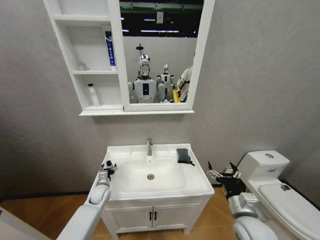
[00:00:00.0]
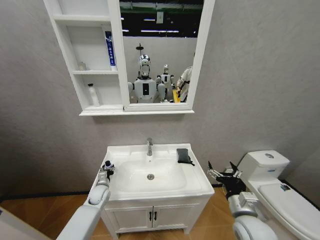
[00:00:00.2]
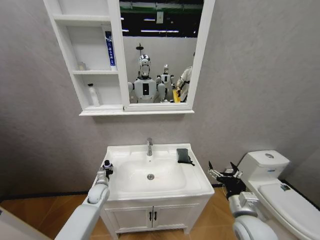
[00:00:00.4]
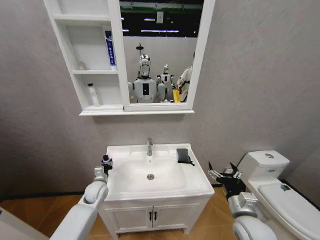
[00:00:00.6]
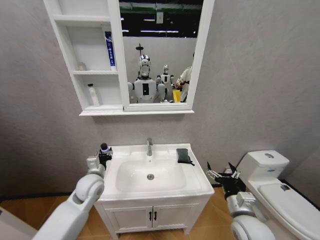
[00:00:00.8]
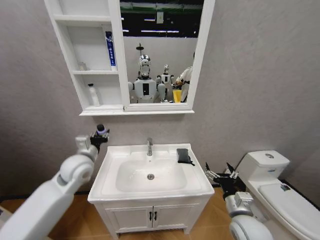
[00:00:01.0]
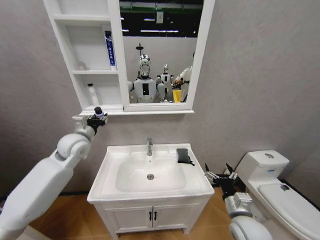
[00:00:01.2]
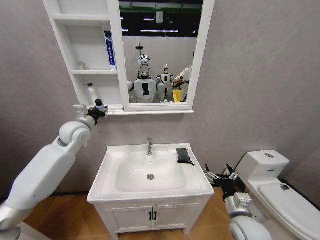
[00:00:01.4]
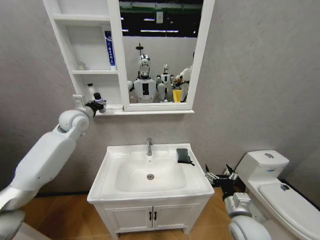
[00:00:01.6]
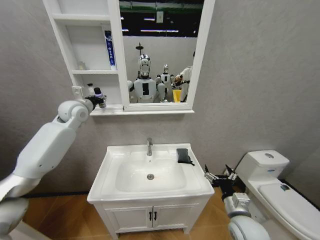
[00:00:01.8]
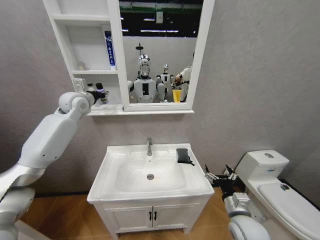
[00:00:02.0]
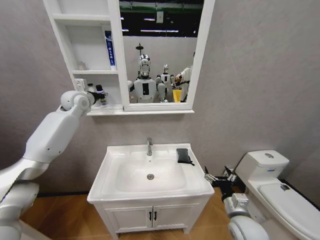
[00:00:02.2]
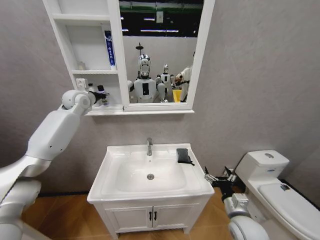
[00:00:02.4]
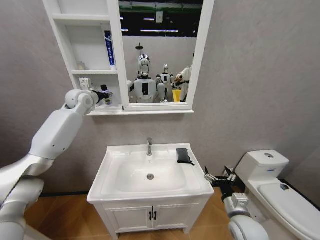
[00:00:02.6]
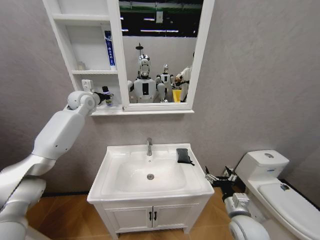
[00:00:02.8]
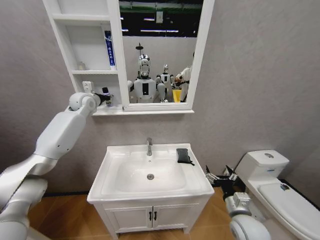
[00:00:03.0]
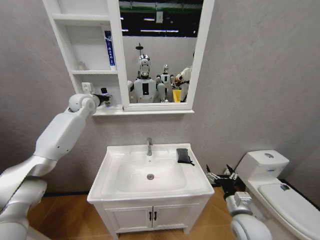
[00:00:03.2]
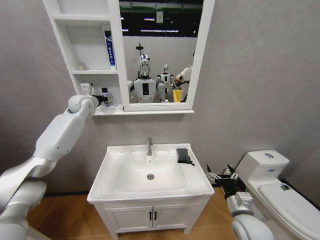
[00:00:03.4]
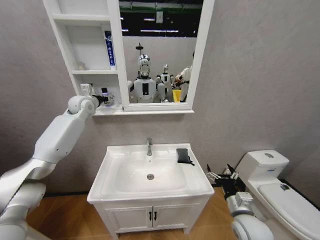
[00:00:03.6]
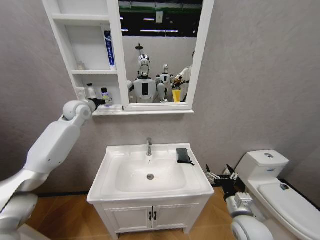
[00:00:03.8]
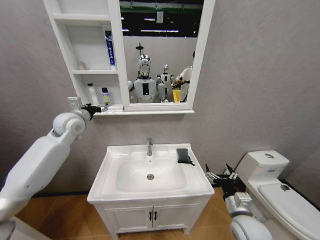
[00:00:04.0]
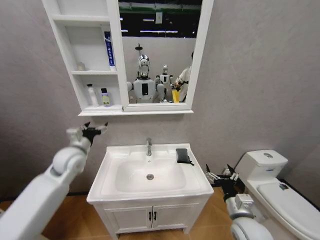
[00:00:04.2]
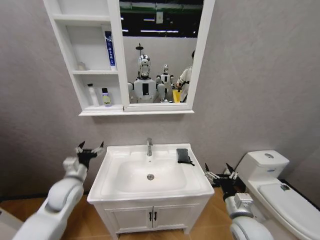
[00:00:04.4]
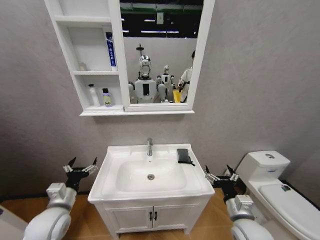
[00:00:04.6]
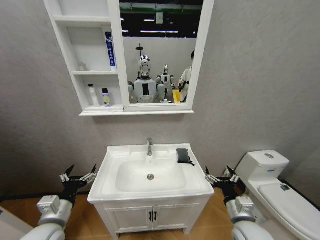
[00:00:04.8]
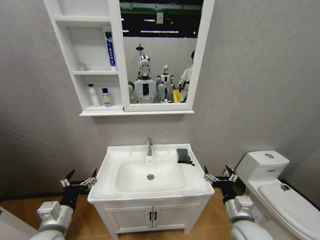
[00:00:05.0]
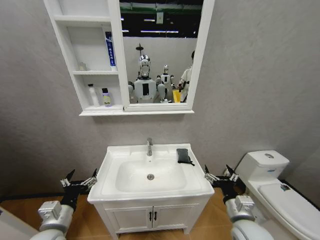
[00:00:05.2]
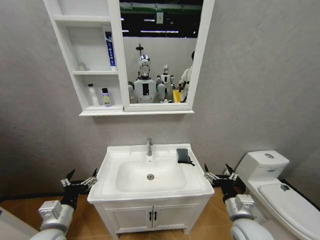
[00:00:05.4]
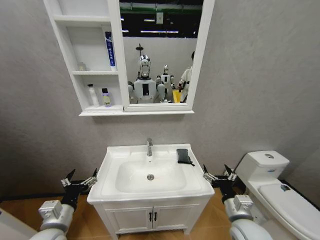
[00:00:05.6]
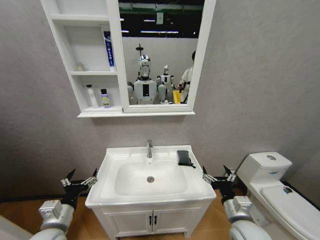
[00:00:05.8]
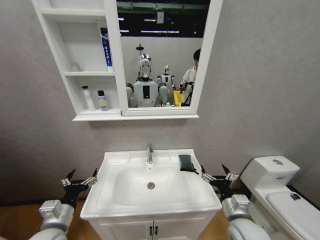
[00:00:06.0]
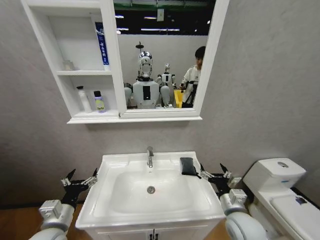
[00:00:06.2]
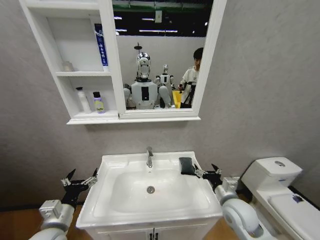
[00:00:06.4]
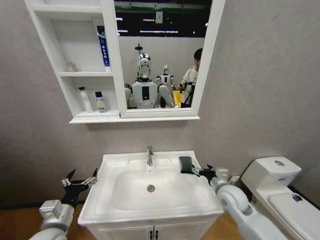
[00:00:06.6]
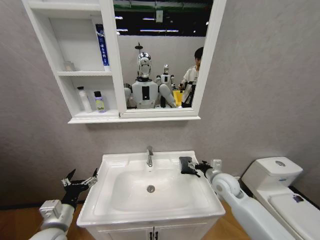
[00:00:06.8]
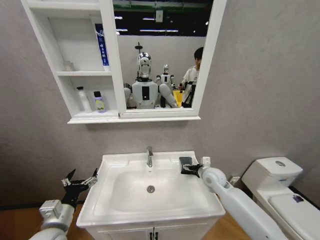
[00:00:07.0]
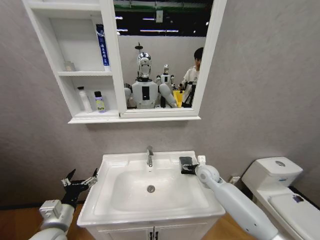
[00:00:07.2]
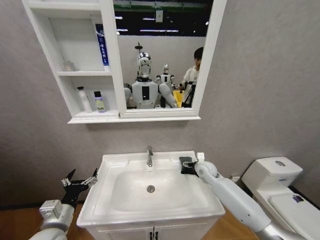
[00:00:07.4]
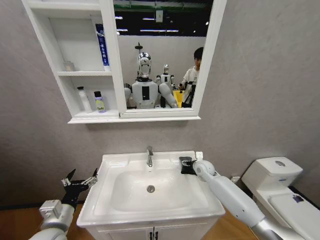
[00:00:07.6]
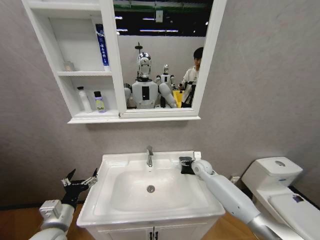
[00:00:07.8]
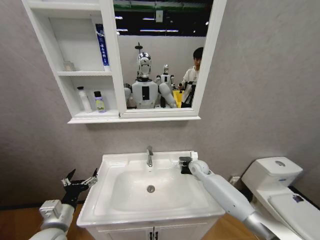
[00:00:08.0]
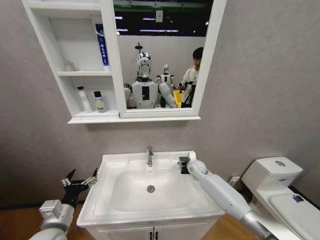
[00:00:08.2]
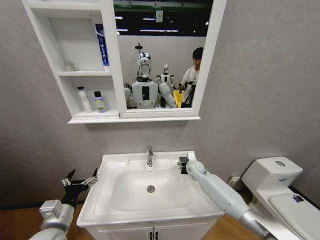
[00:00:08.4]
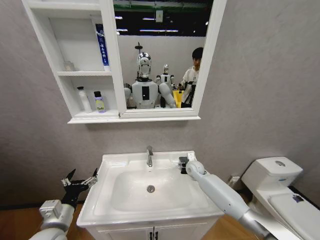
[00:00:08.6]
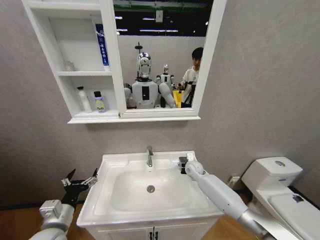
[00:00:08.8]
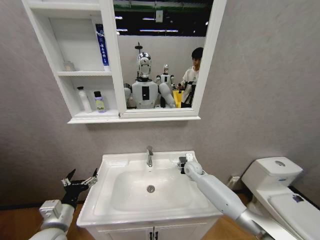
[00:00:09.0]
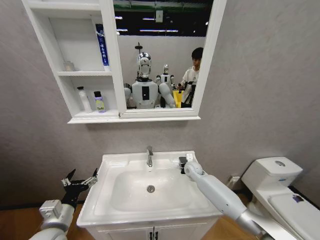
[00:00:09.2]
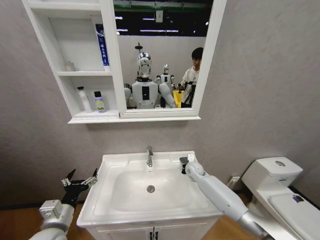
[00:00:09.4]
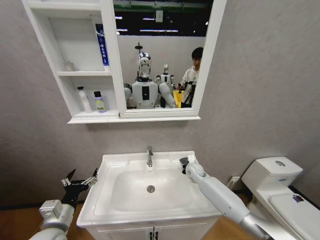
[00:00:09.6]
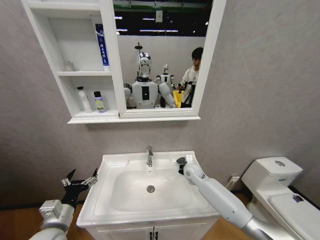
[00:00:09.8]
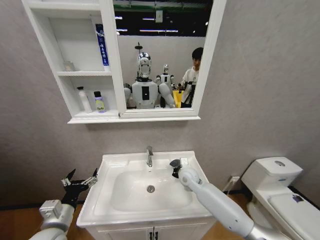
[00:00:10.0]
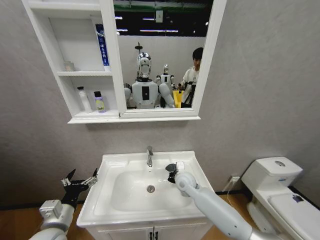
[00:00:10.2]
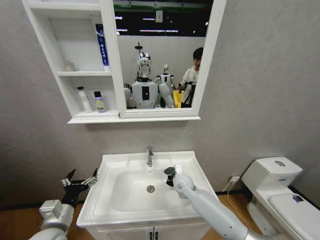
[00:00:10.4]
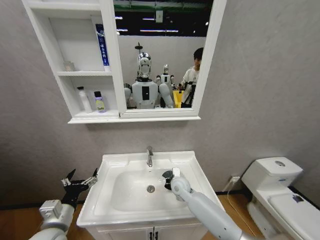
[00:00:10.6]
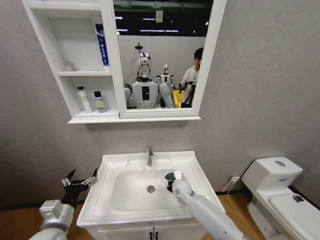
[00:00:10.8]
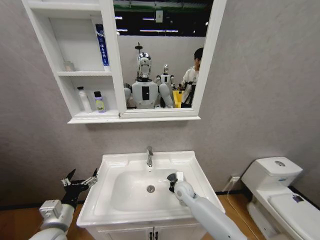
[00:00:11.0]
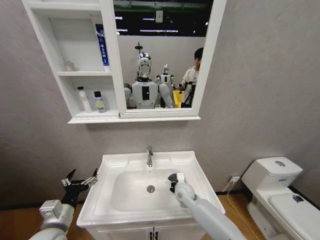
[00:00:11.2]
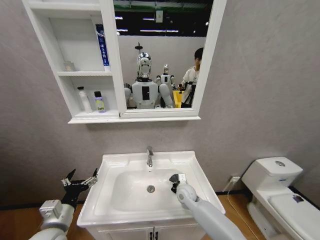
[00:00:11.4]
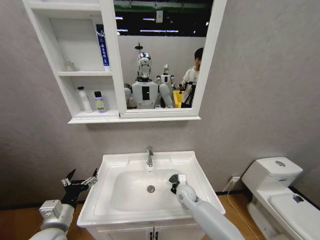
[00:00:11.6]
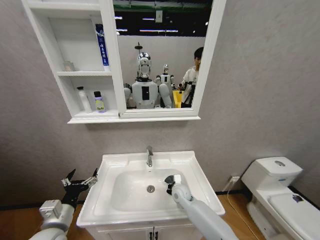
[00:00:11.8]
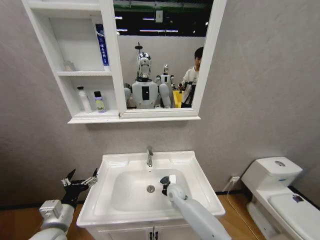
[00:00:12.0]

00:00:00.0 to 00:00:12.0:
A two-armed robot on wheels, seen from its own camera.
Task of the whole recording: Move facial cleanser and shampoo from washbasin to cabinet, then wipe washbasin with towel.
00:00:00.0 to 00:00:01.6: The left gripper moves upward, about 40 cm, and closes.
00:00:01.6 to 00:00:03.0: The left gripper is displaced forward by about 10 cm.
00:00:03.0 to 00:00:04.4: The left gripper moves backward and downward, approximately 35 cm, and opens up.
00:00:04.4 to 00:00:06.0: The left gripper shifts roughly 15 cm backward.
00:00:06.0 to 00:00:07.6: The right gripper is displaced forward by about 25 cm.
00:00:07.6 to 00:00:09.0: The right gripper shifts by some 5 cm.
00:00:09.0 to 00:00:10.4: The right gripper travels backward and to the left by about 10 cm, and closes up.
00:00:10.4 to 00:00:12.0: The right gripper travels downward by approximately 5 cm.

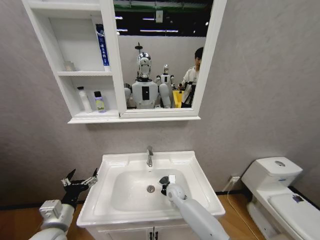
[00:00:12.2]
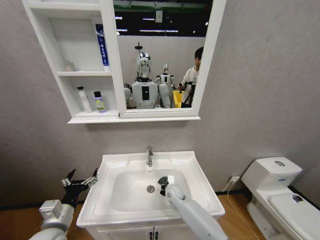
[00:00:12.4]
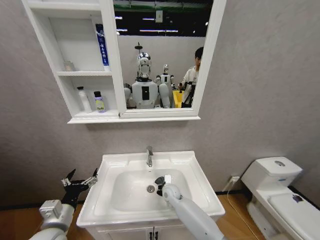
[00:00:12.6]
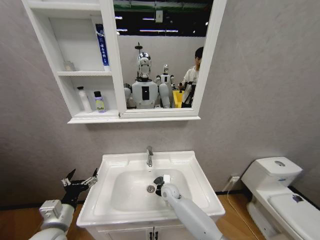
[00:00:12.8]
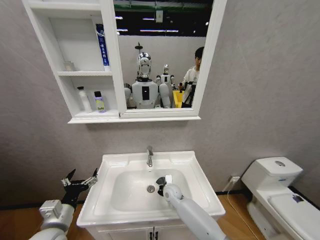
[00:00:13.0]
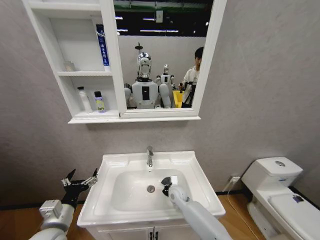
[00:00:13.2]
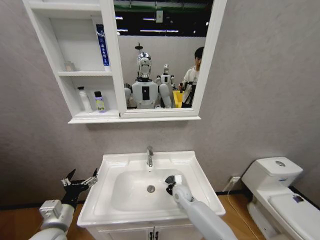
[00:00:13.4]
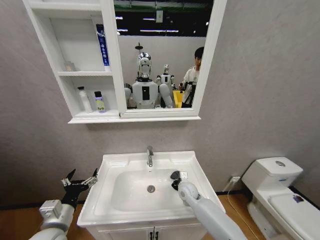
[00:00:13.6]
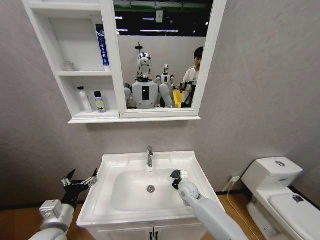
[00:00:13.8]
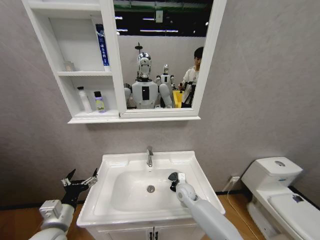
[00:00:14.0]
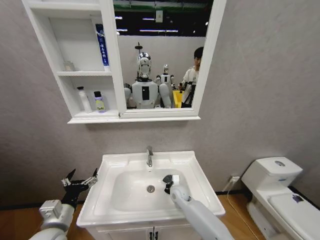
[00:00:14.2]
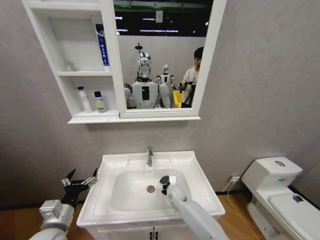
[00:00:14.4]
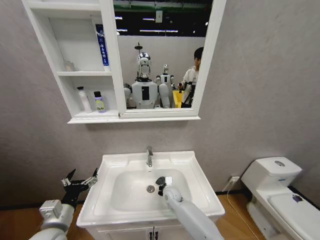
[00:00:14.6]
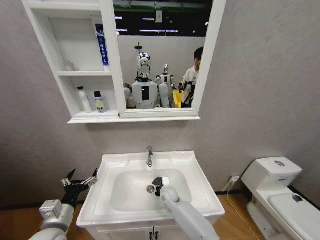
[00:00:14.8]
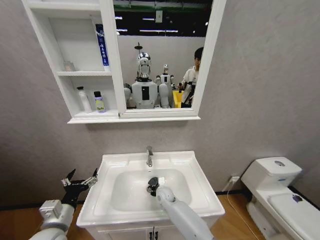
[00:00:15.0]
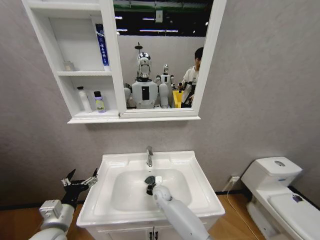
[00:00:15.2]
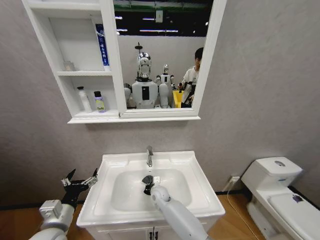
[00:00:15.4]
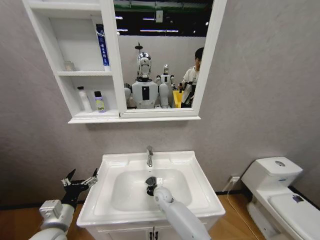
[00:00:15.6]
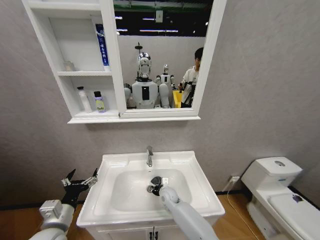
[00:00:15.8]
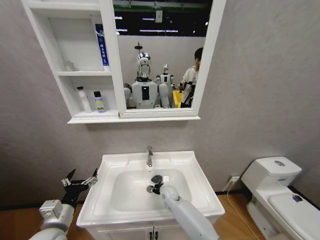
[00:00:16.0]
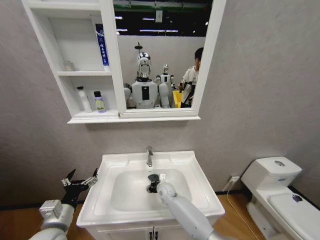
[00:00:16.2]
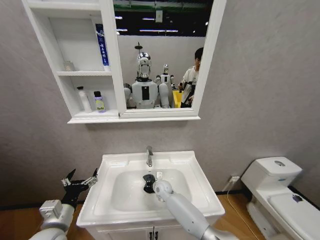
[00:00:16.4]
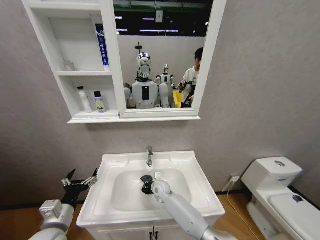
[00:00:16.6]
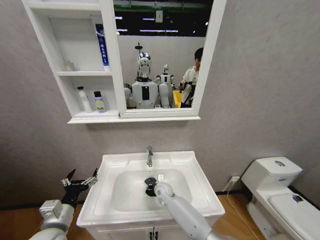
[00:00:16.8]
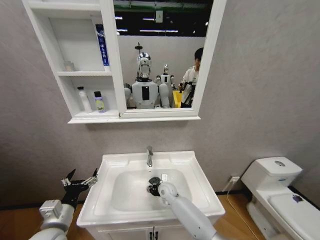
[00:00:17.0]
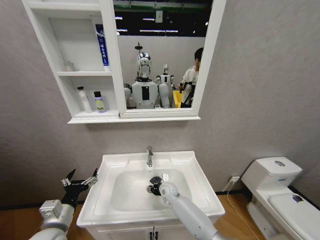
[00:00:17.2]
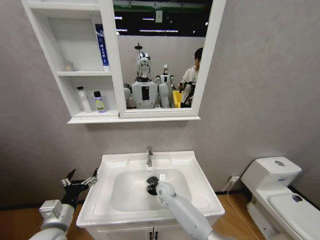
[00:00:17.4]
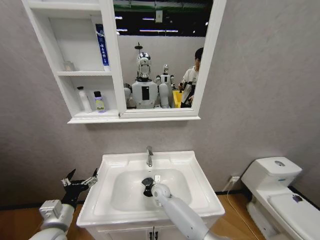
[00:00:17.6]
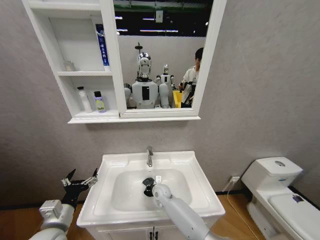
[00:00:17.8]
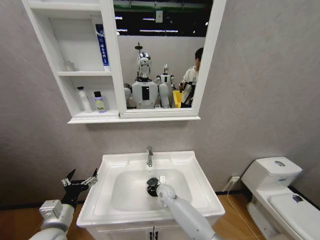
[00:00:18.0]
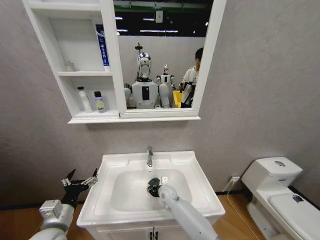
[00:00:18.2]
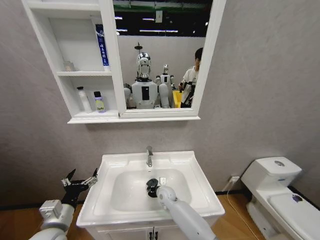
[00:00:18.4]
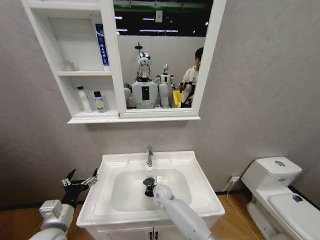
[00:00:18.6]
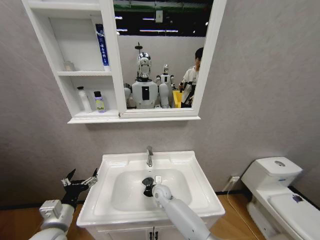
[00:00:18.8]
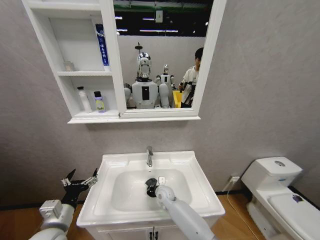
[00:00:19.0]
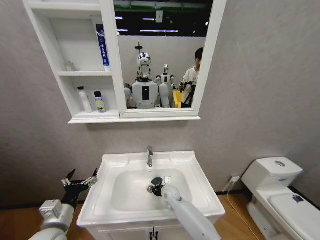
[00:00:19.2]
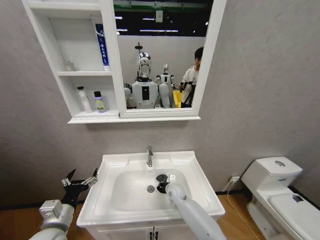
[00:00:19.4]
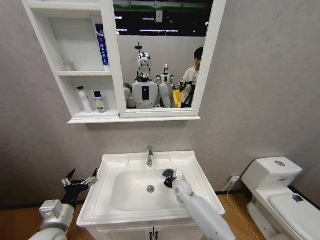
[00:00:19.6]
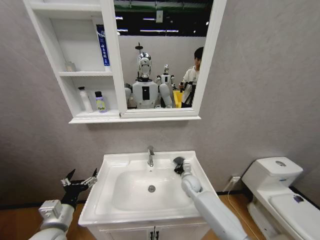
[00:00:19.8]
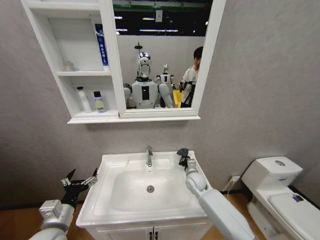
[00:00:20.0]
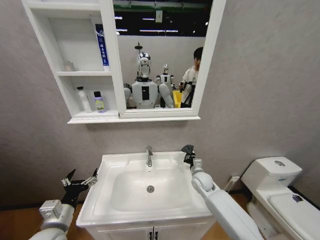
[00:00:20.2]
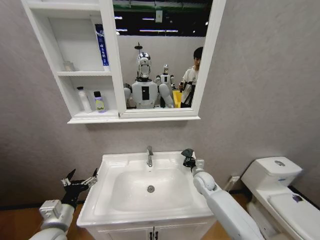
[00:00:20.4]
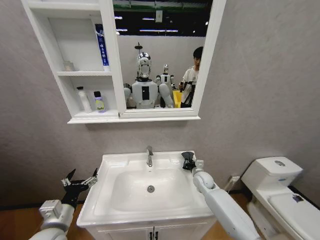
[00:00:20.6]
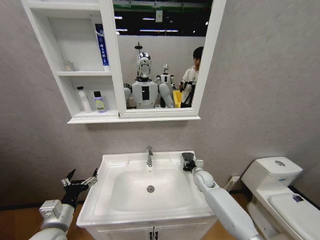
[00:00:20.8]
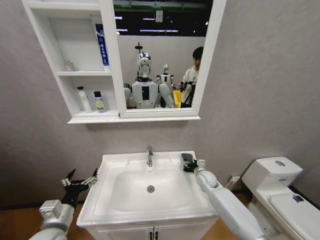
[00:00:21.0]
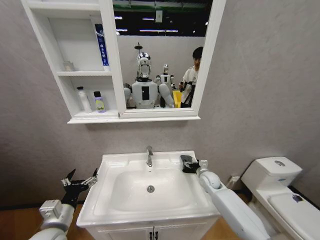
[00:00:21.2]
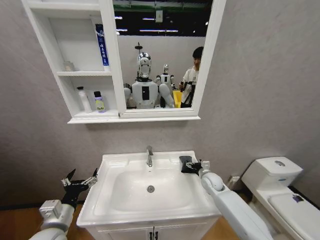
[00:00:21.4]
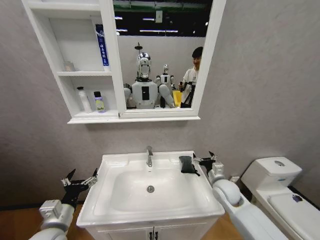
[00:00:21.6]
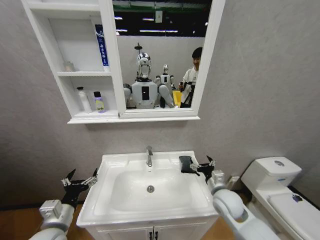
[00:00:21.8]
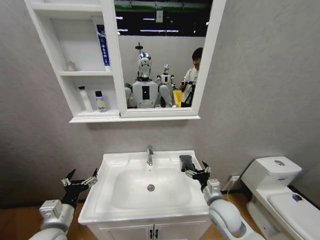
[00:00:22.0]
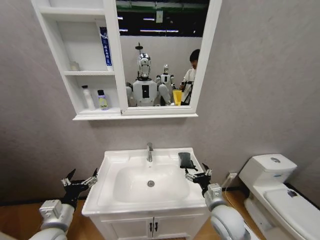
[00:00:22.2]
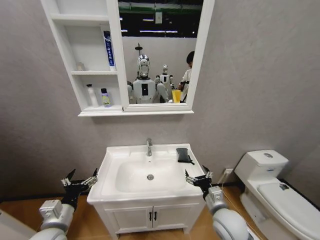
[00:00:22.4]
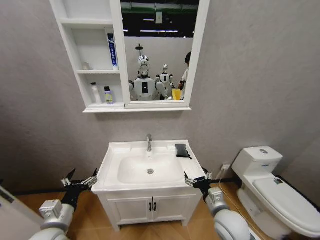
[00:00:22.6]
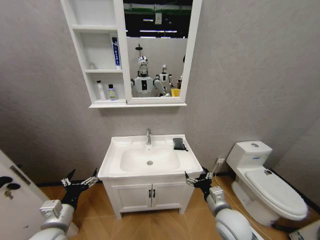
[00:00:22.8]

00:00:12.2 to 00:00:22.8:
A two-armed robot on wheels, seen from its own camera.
Task of the whole recording: Move facial cleanser and shampoo from washbasin to cabinet, then wipe washbasin with towel.
00:00:12.2 to 00:00:13.8: The right gripper moves to the right, some 5 cm.
00:00:13.8 to 00:00:15.2: The right gripper is displaced to the left and downward by about 15 cm.
00:00:15.2 to 00:00:16.8: The grippers move only a little.
00:00:18.2 to 00:00:19.8: The right gripper heads to the right and upward, covering roughly 15 cm.
00:00:19.8 to 00:00:21.2: The right gripper is displaced to the right by some 10 cm, and opens its fingers.
00:00:21.2 to 00:00:22.8: The right gripper shifts about 20 cm backward.
